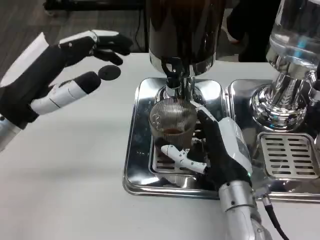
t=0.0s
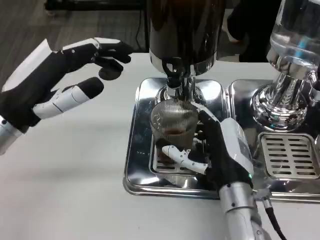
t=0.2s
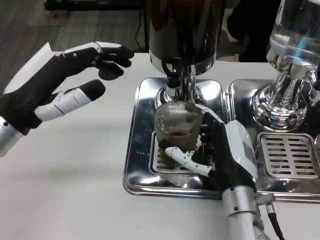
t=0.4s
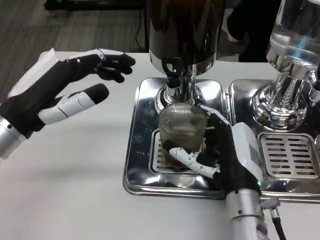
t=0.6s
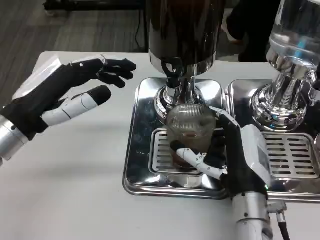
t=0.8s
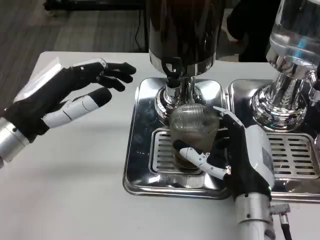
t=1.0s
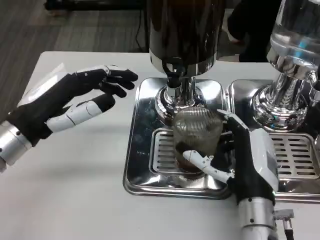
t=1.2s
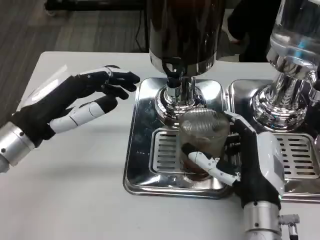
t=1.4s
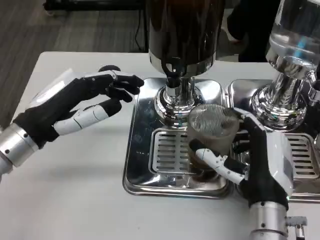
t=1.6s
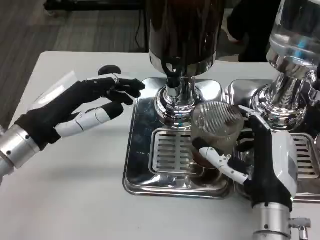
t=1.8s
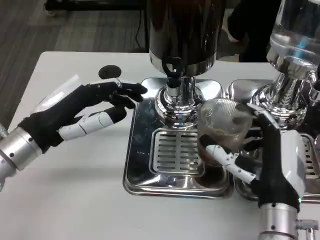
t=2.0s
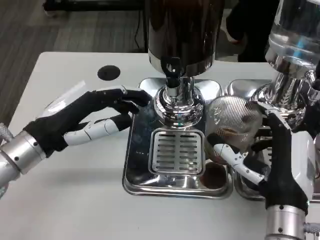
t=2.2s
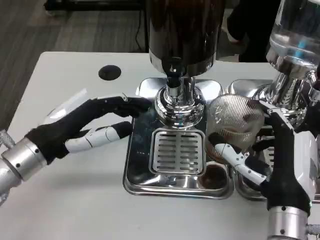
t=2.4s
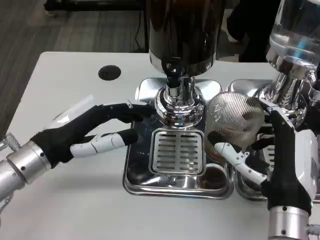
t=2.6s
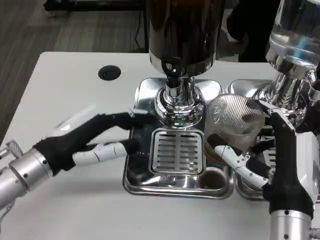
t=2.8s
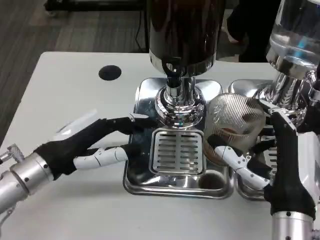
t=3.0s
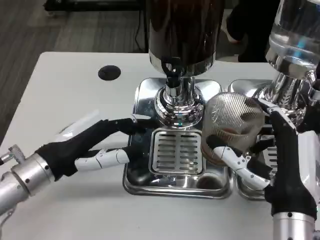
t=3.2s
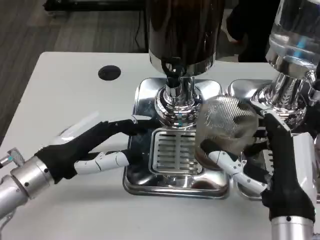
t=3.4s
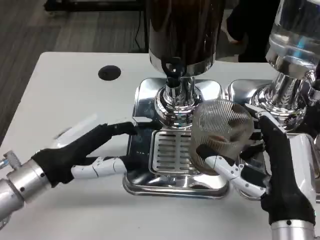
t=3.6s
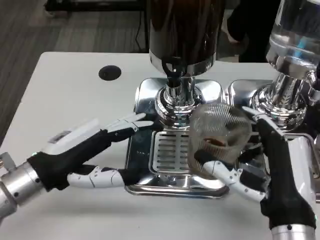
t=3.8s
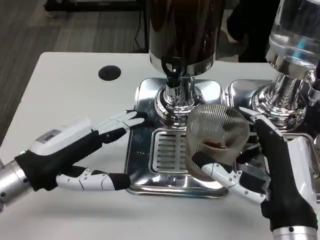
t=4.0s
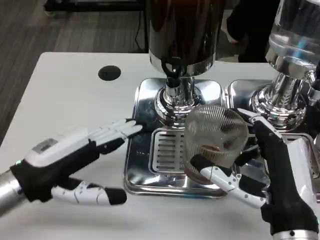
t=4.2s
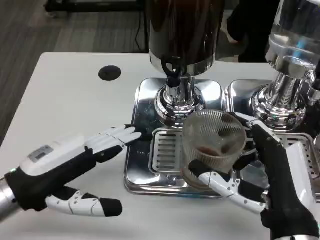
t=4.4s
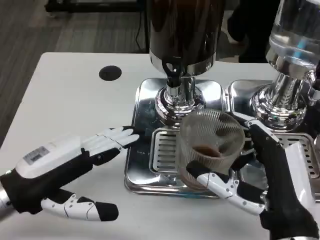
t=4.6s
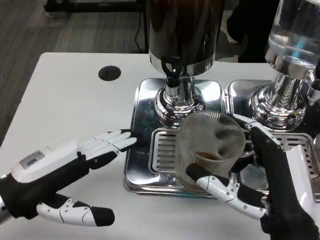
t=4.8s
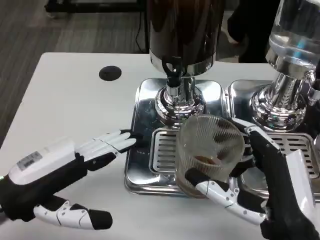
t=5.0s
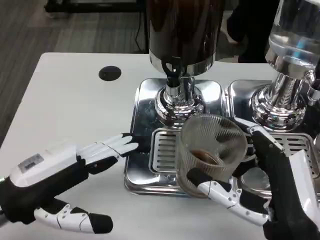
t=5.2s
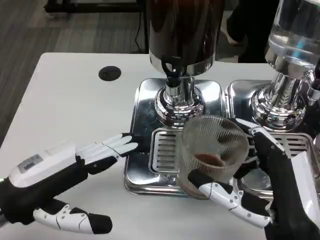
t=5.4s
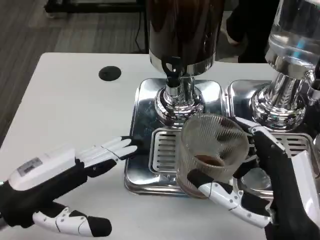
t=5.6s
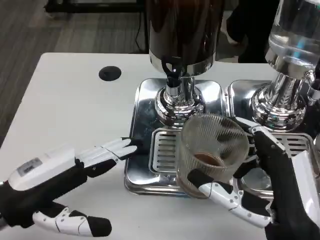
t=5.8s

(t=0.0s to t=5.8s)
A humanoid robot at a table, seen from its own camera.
Task of the whole recording: Grasp the cup under the faucet to collect the drink, then remove the cup.
t=2.8s - t=4.4s: The left hand ends up about 5 cm from where it was.
t=4.4s - t=5.8s: There are only small adjustments of the hands.

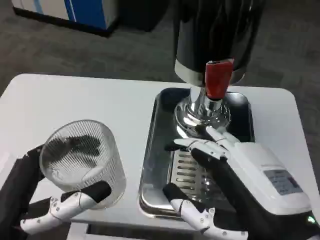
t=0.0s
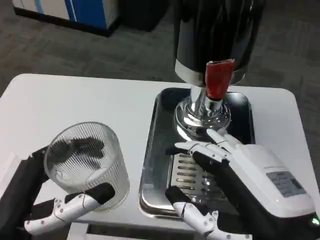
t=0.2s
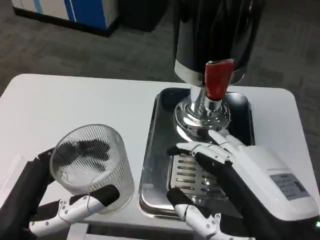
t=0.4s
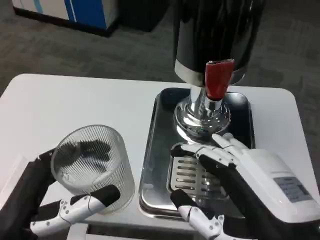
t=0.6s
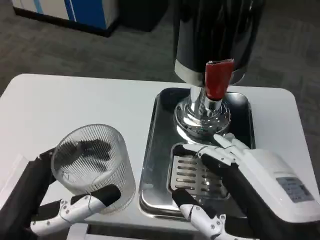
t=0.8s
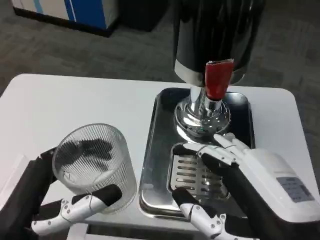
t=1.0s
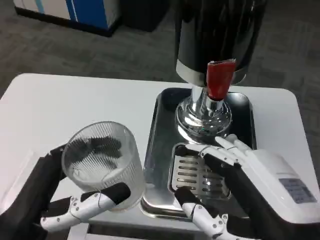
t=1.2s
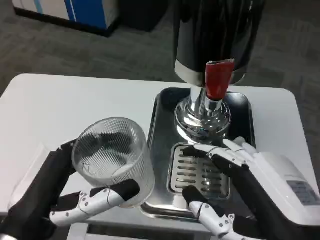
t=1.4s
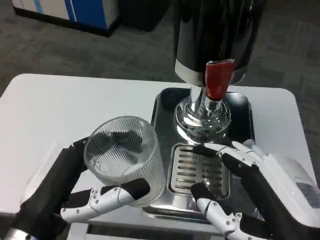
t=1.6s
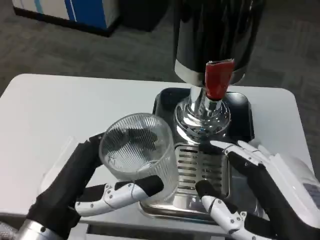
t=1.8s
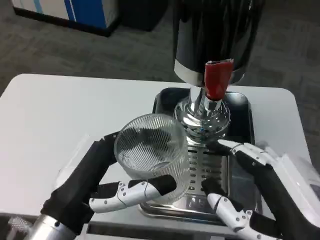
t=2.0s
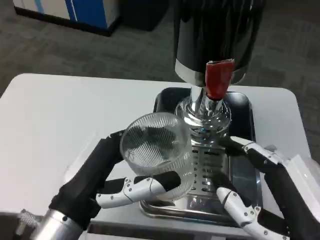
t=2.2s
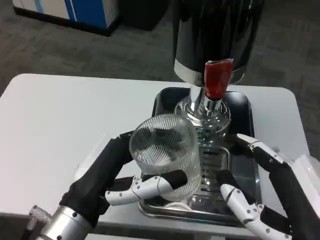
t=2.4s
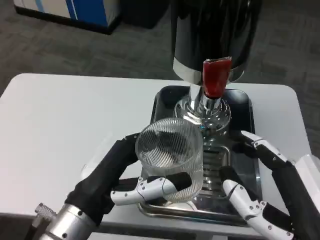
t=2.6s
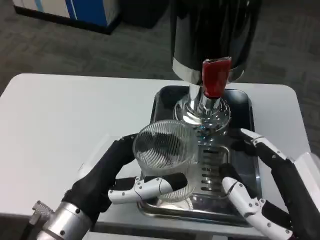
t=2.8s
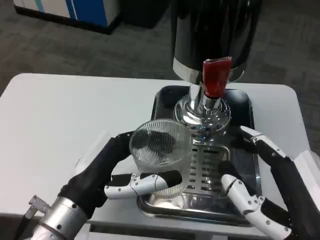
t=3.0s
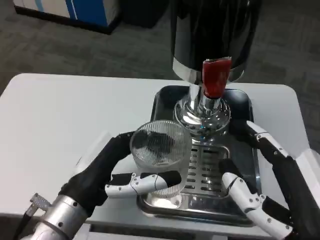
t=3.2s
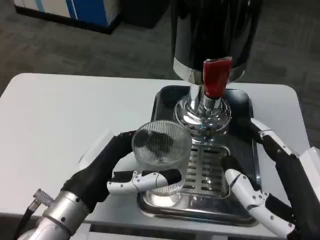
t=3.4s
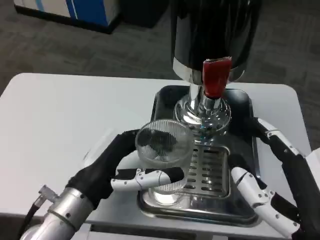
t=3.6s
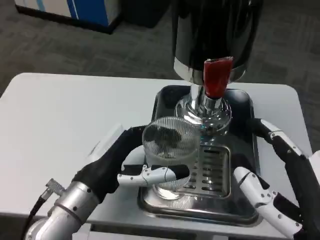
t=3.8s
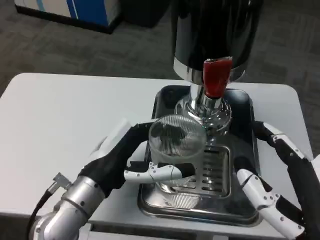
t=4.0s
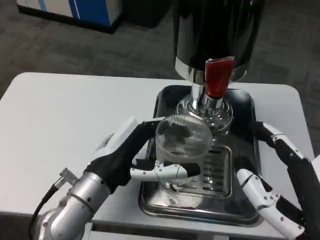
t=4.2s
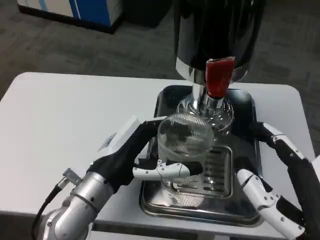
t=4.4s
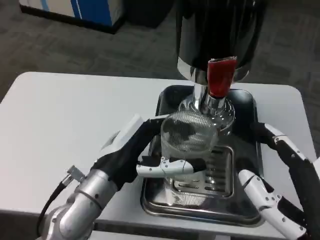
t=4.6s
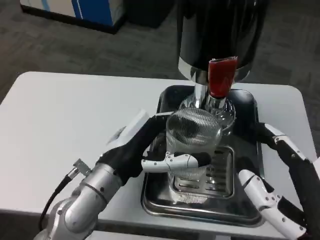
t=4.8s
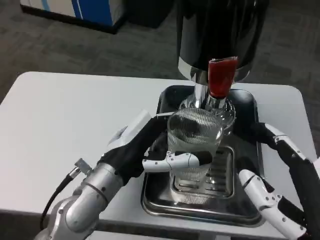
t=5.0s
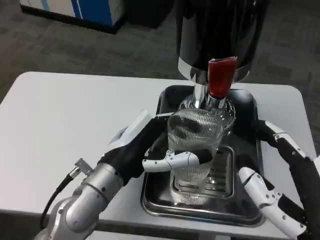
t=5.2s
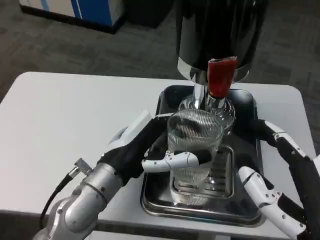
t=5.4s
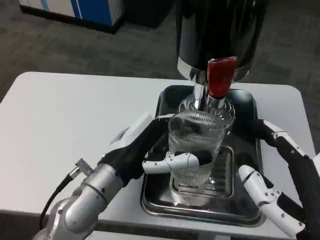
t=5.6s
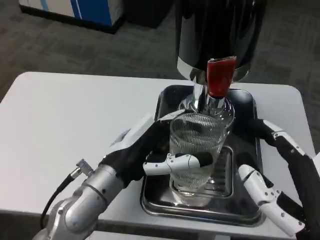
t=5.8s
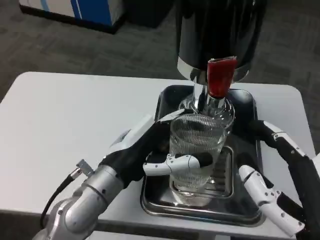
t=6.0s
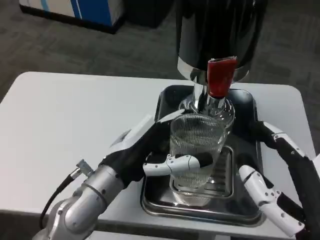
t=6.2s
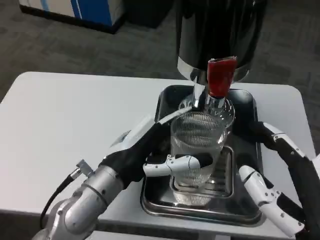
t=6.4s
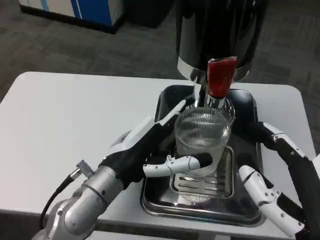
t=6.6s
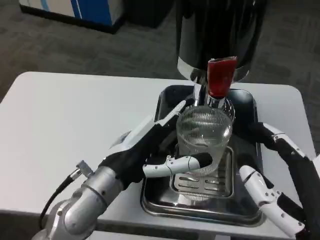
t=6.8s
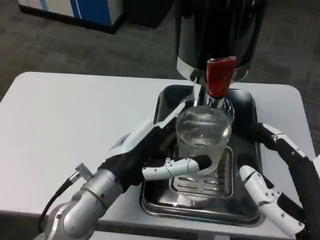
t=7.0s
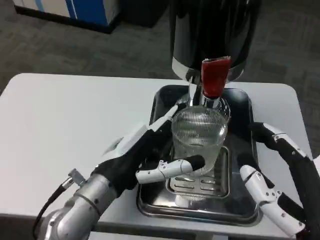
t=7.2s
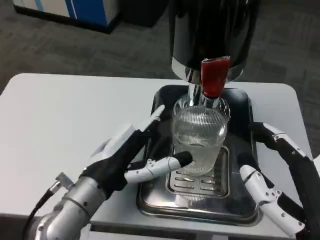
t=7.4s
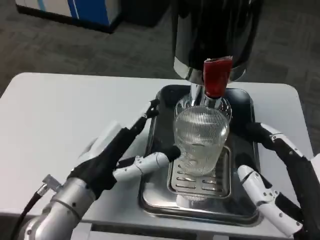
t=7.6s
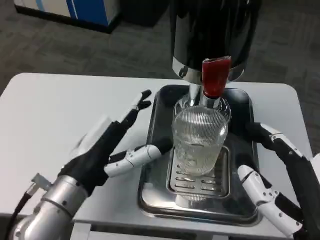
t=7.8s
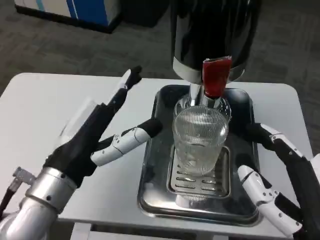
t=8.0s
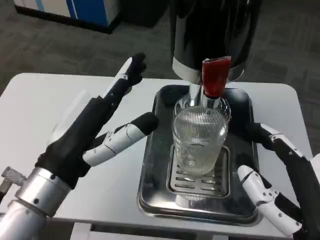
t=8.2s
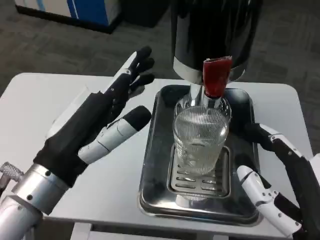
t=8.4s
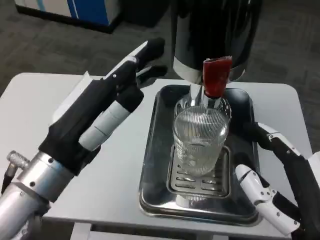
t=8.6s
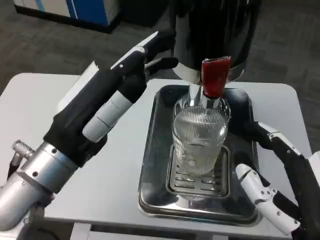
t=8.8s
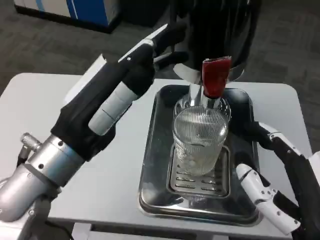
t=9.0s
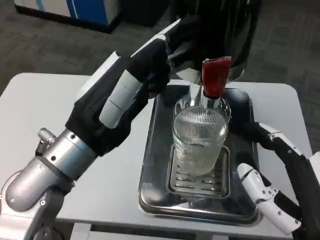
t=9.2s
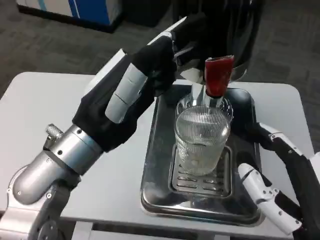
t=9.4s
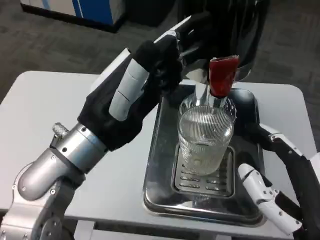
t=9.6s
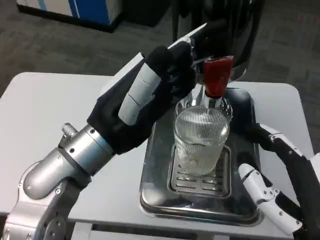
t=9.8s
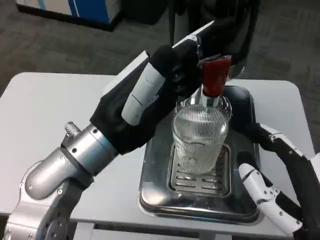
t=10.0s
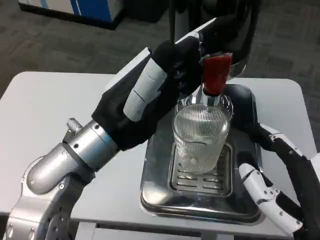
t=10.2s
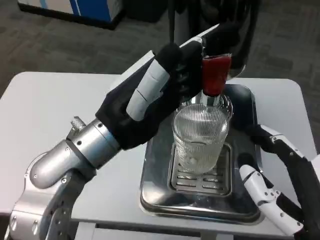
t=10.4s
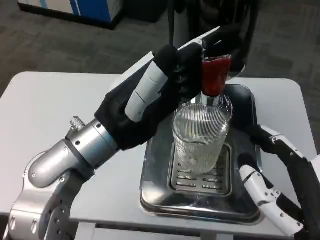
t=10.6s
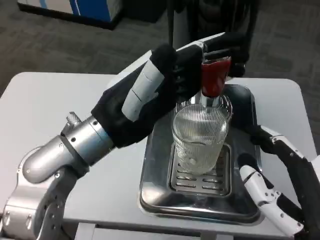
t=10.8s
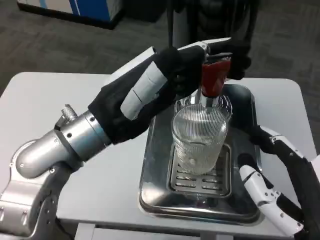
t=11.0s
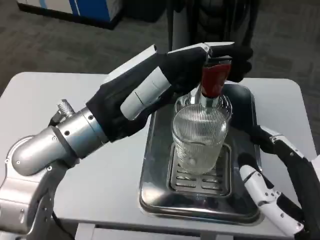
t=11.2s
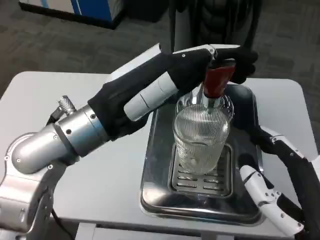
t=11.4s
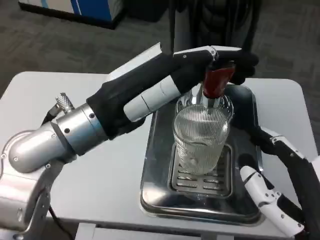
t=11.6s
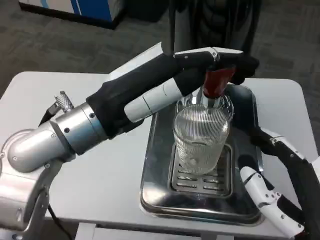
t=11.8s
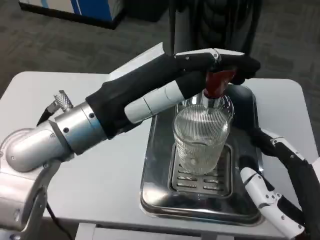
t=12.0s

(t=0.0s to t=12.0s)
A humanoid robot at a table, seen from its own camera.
Task of the whole recording: Grasp the cup under the faucet to collect the drink, then remove the cup.
t=1.6s - t=3.0s: The left hand shifts some 5 cm forward.
t=3.0s - t=4.4s: The left hand ends up roughly 5 cm from where it was.
t=4.4s - t=6.0s: The hands move only a little.
t=7.6s - t=9.0s: The left hand is displaced upward by some 10 cm.

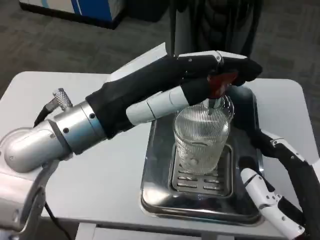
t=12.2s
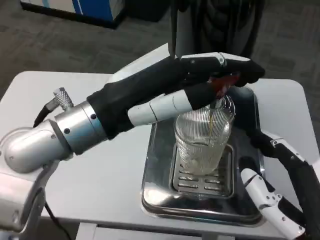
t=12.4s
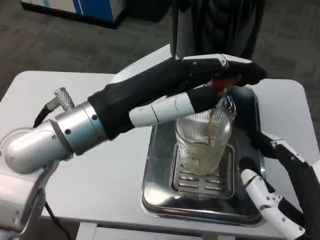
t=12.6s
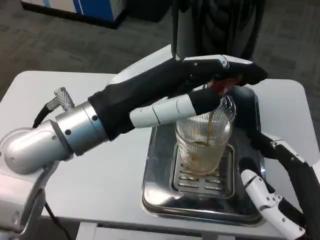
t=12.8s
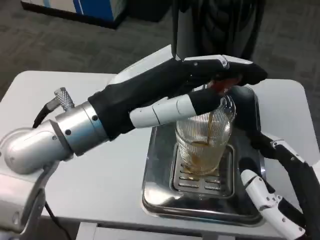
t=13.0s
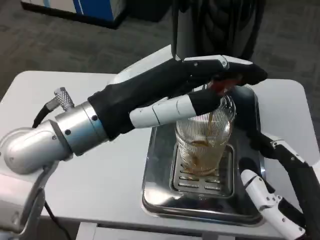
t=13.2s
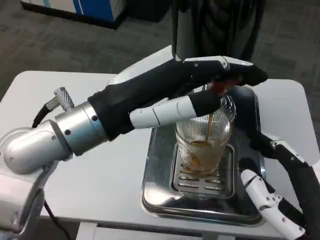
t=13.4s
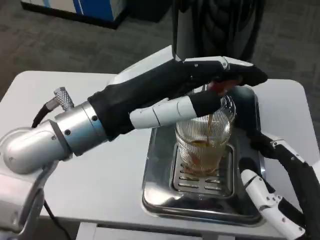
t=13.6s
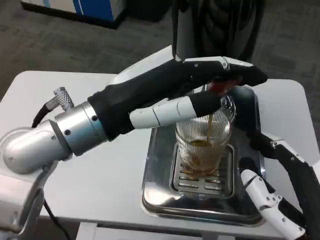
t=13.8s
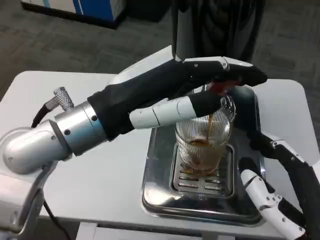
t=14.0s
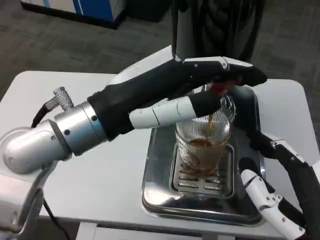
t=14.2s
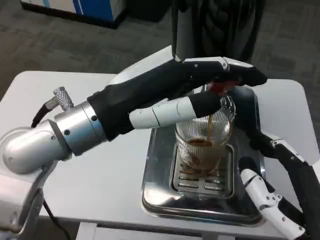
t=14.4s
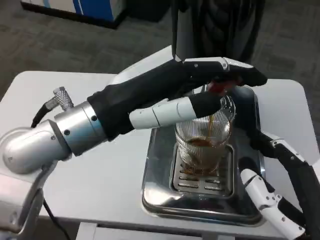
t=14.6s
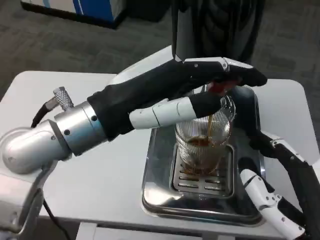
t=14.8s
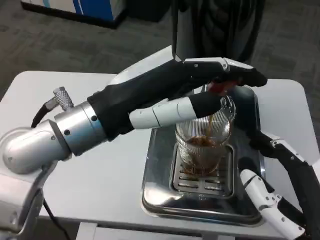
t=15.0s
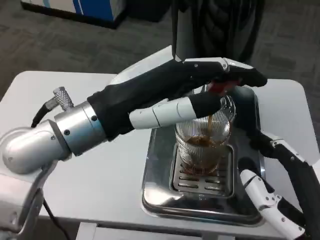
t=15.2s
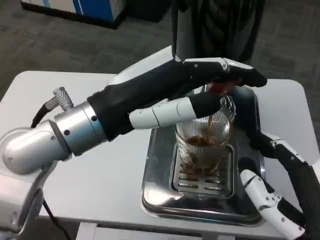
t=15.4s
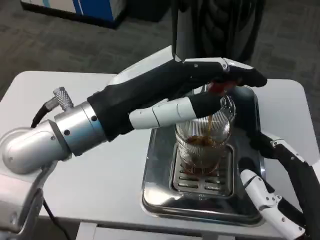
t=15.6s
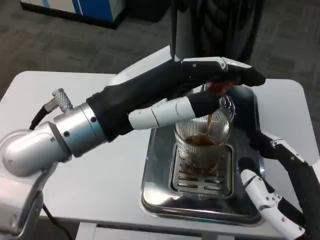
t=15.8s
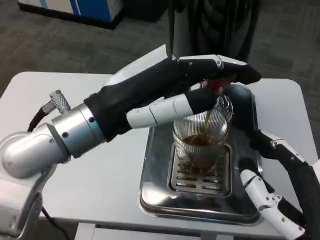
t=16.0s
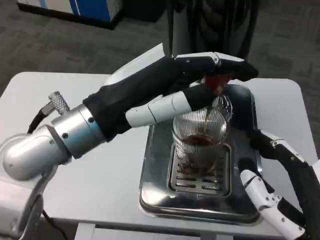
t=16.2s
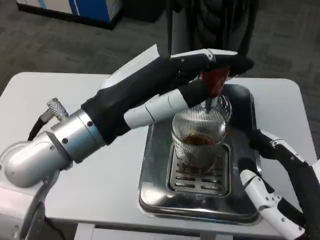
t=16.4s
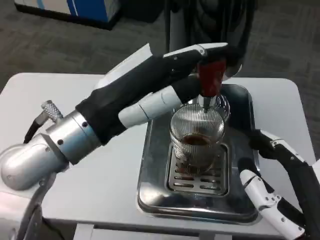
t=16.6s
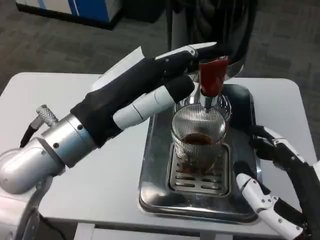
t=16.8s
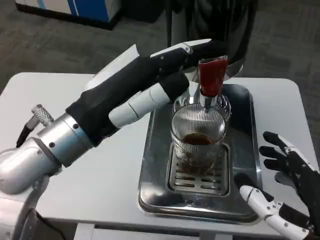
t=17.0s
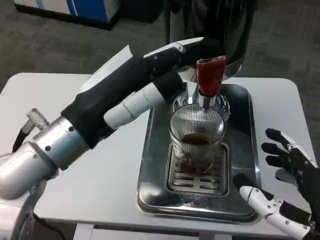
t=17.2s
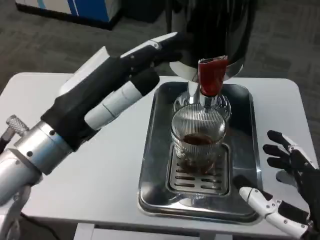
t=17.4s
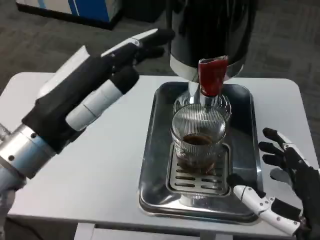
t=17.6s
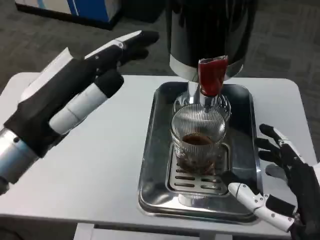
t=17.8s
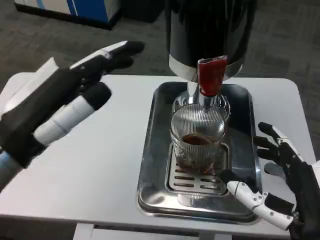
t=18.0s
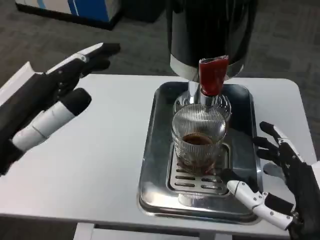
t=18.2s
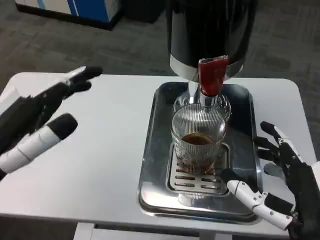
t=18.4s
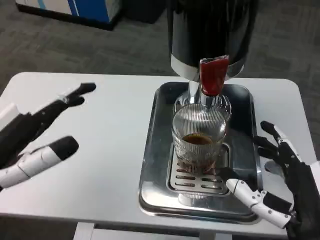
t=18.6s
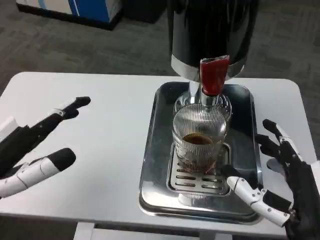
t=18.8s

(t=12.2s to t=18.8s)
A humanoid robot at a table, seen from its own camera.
Task of the whole recording: Grasp the cup under the faucet to collect the drink, then remove the cup.
t=12.2s - t=15.4s: Both hands stay about where they are.
t=17.2s - t=18.8s: The left hand is displaced to the left and backward by some 15 cm.
